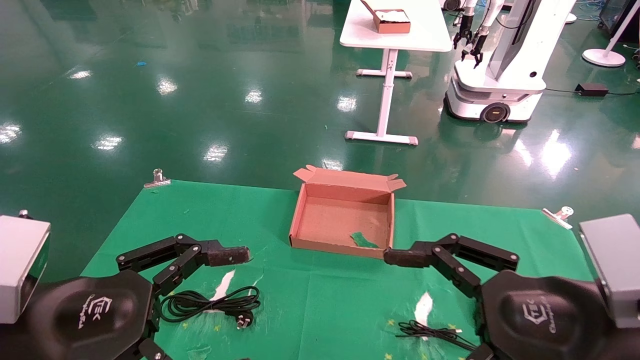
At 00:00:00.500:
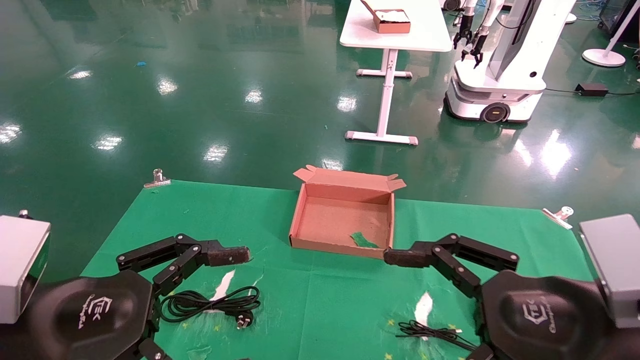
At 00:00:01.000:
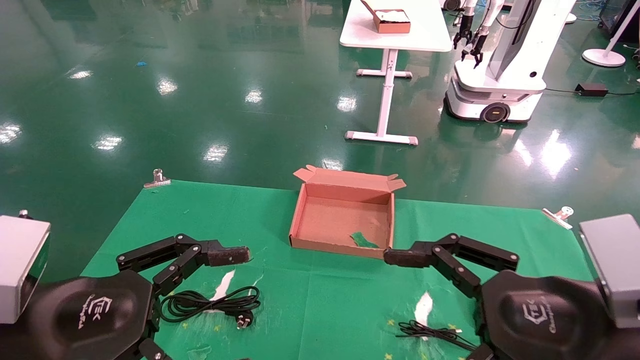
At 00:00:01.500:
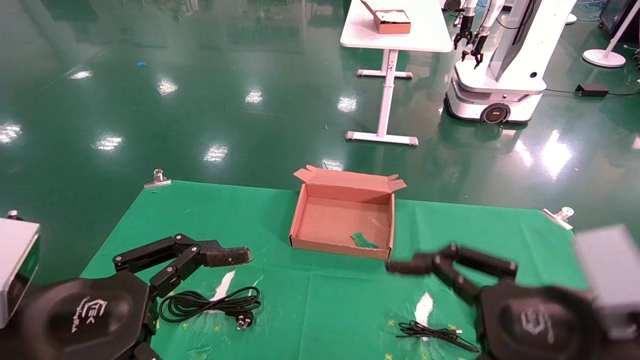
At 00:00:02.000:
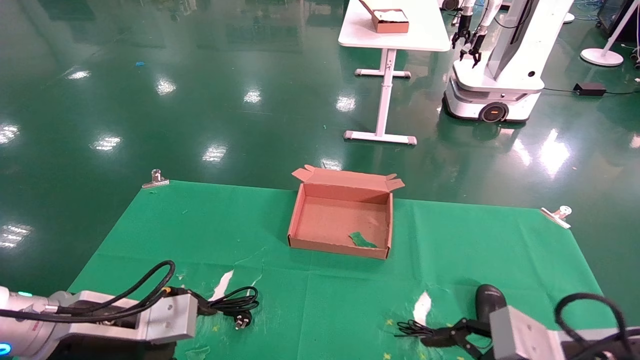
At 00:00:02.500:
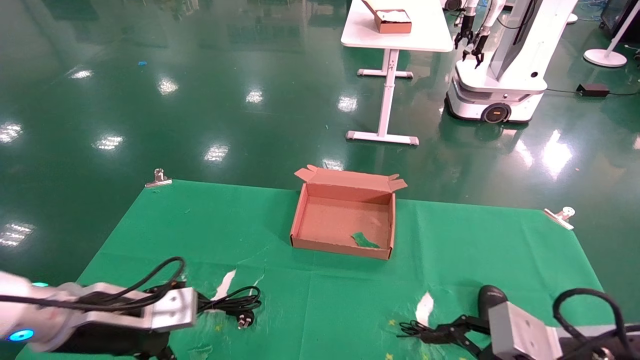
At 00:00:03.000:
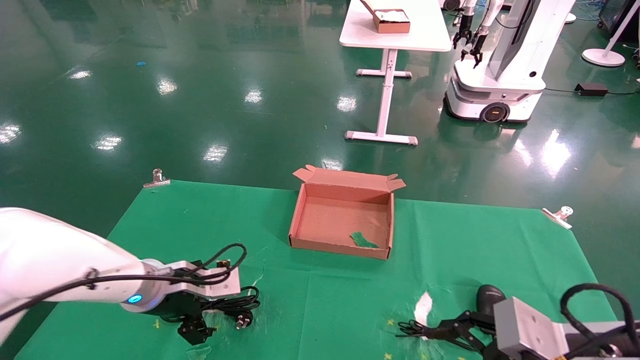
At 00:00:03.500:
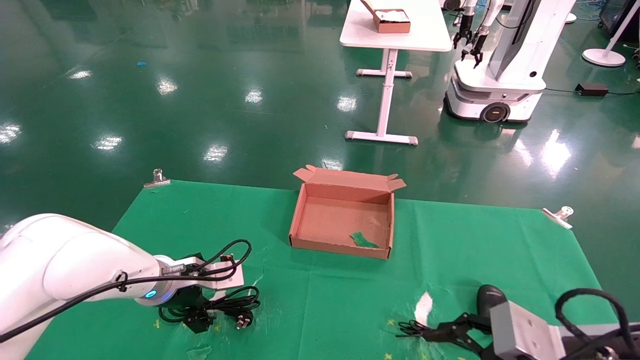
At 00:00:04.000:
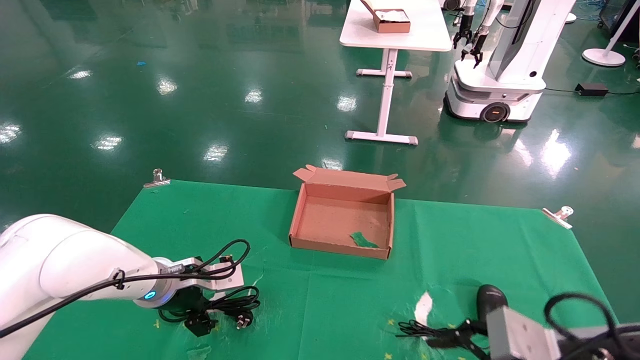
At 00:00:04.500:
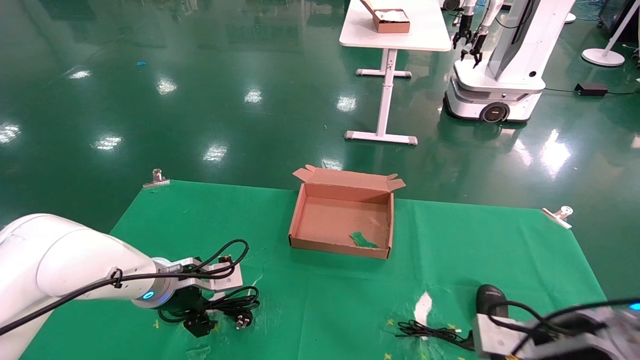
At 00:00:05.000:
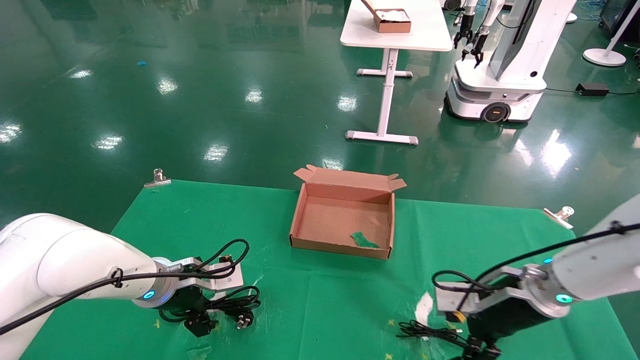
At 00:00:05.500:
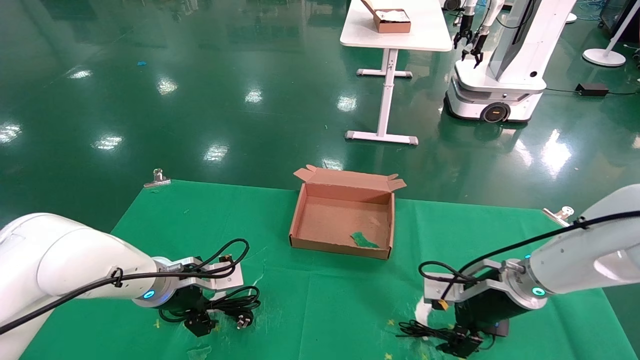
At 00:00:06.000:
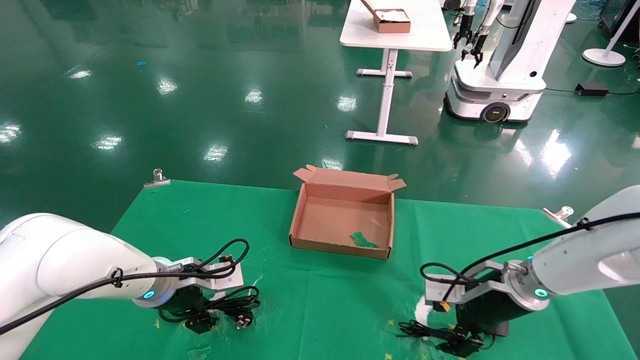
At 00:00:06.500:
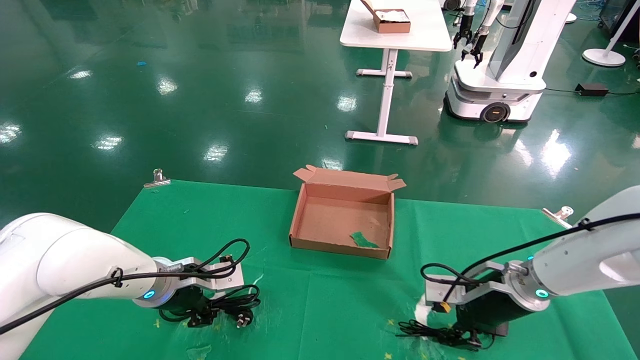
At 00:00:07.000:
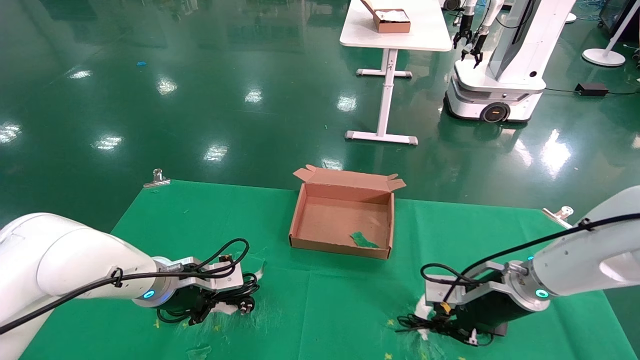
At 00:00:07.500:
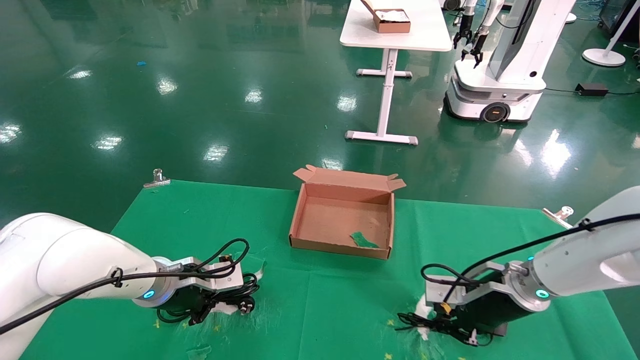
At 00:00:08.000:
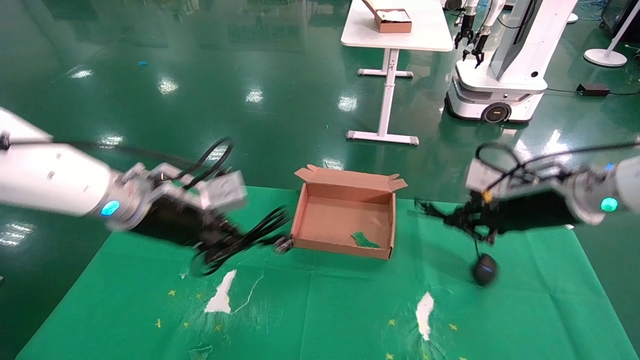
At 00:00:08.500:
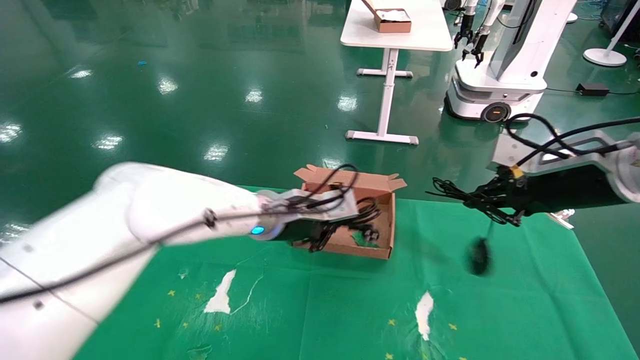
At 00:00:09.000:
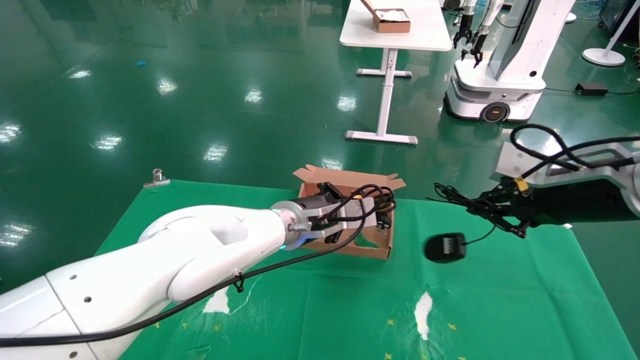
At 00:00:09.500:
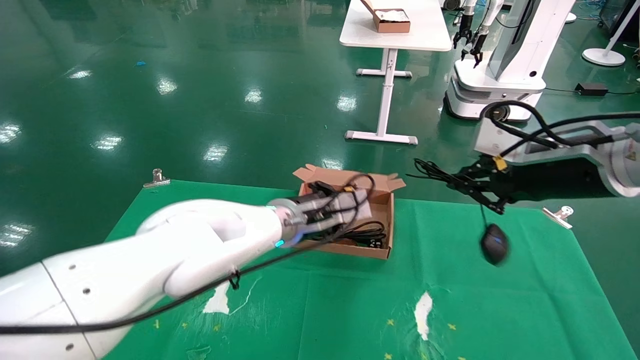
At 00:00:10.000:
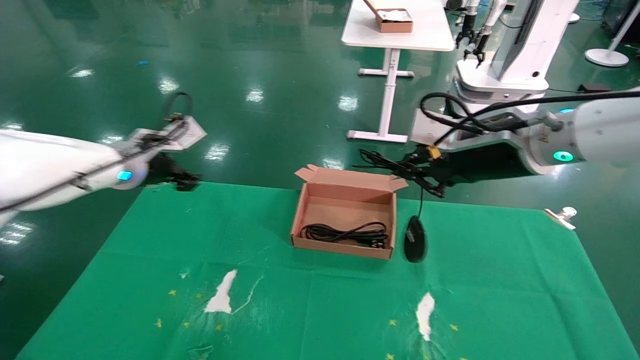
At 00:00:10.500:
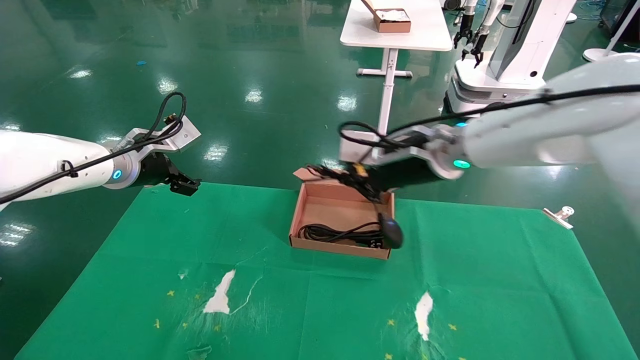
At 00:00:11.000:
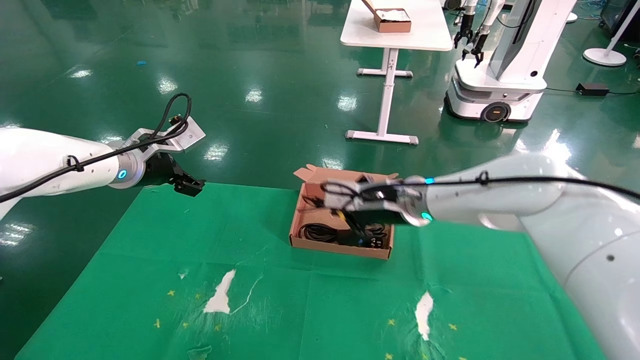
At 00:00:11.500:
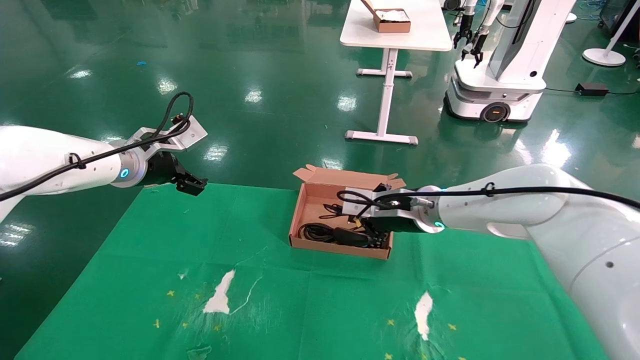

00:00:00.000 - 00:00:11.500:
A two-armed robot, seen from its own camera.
Step, 00:00:02.500 - 00:00:06.000: Grab and lift both the mouse and power cord from the accessory packaging area at the same time.
00:00:00.000 - 00:00:02.000: The right gripper moves downward, roughly 5 cm. Meanwhile the left gripper goes about 10 cm forward and downward.
00:00:02.000 - 00:00:04.000: The left gripper is displaced forward by about 15 cm.
00:00:04.000 - 00:00:06.000: The right gripper moves forward, some 20 cm.
00:00:06.000 - 00:00:07.500: The right gripper closes its fingers; the left gripper closes its fingers.
00:00:07.500 - 00:00:09.500: The left gripper is displaced to the right and upward by some 20 cm; the right gripper shifts approximately 20 cm upward and backward.
00:00:09.500 - 00:00:11.500: The right gripper shifts about 25 cm to the left, forward and downward; the left gripper heads to the left, covering some 20 cm, and opens its fingers.

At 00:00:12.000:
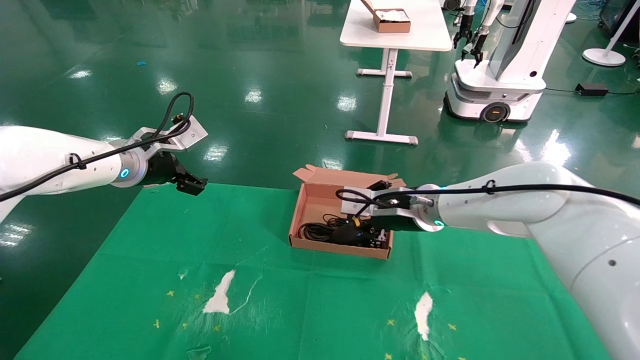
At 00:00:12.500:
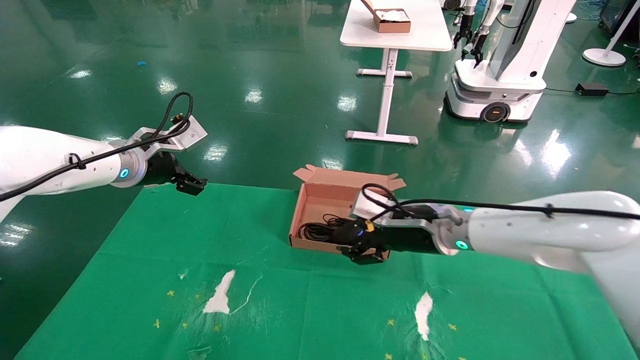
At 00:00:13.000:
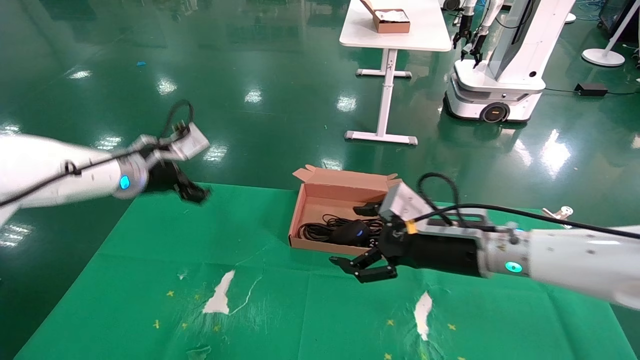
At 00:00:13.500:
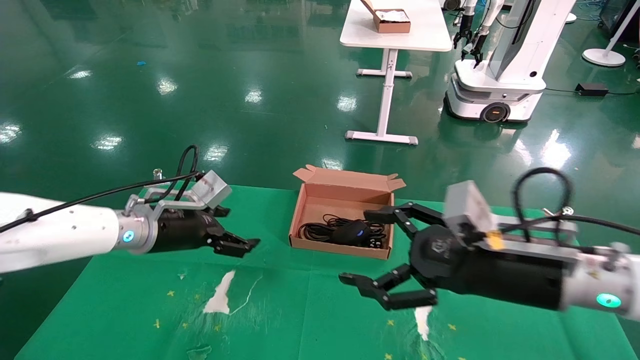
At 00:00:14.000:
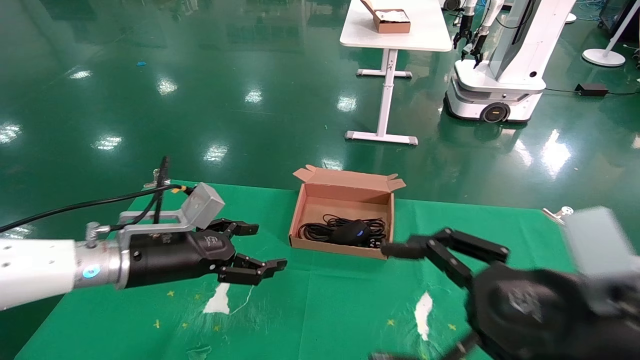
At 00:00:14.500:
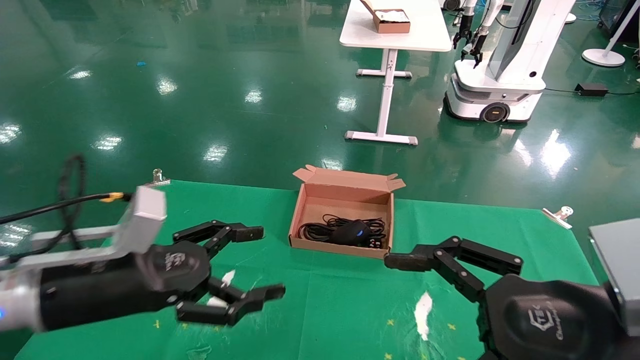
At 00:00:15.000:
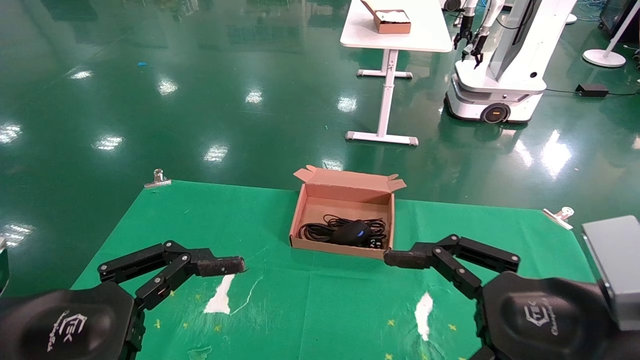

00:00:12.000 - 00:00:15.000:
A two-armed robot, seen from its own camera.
00:00:12.000 - 00:00:13.500: The left gripper travels downward by roughly 10 cm; the right gripper goes roughly 20 cm backward and to the right, and opens its fingers.
00:00:13.500 - 00:00:15.000: The left gripper travels backward by approximately 25 cm, while the right gripper goes about 10 cm backward.
